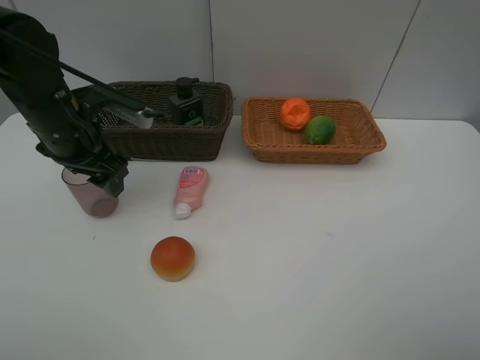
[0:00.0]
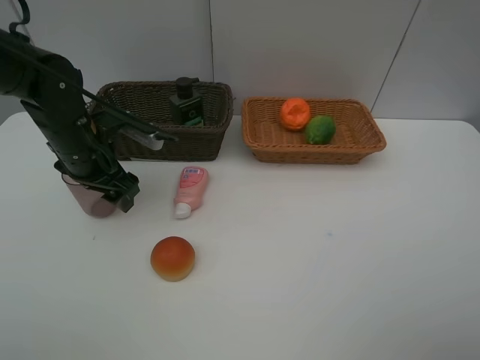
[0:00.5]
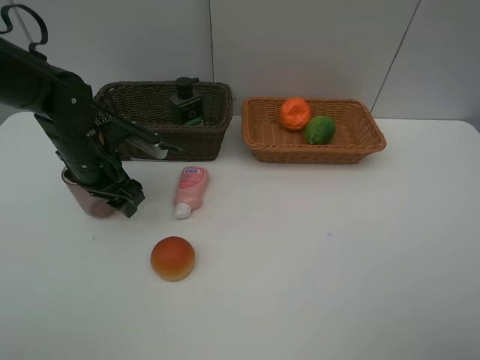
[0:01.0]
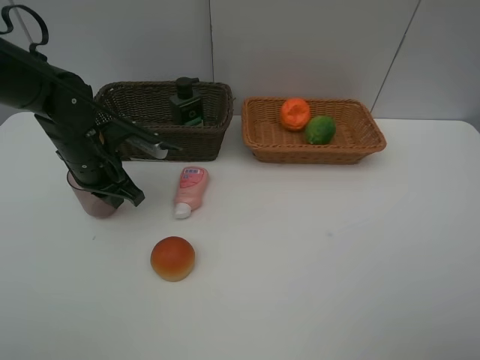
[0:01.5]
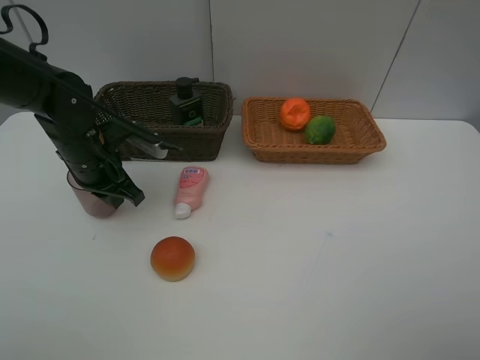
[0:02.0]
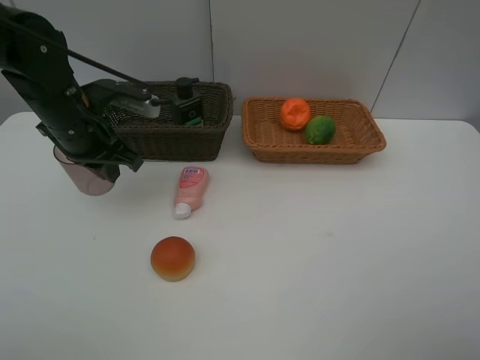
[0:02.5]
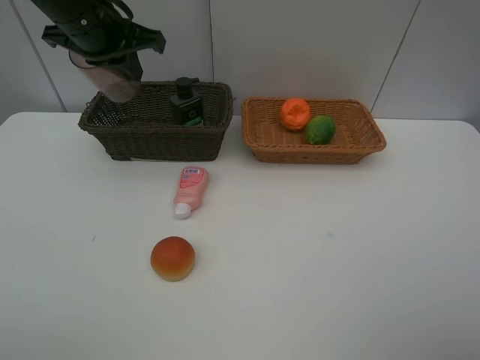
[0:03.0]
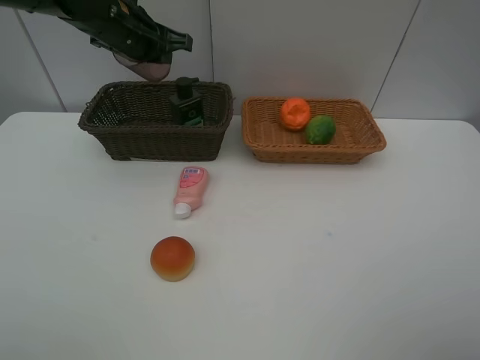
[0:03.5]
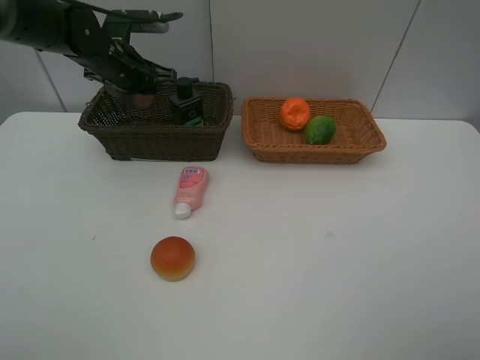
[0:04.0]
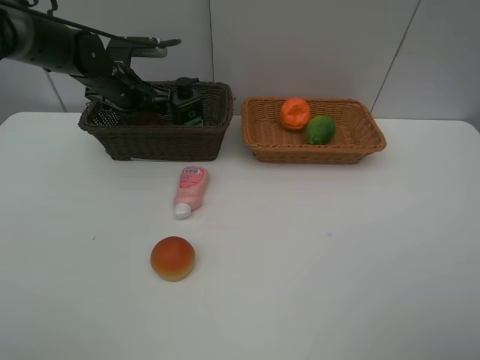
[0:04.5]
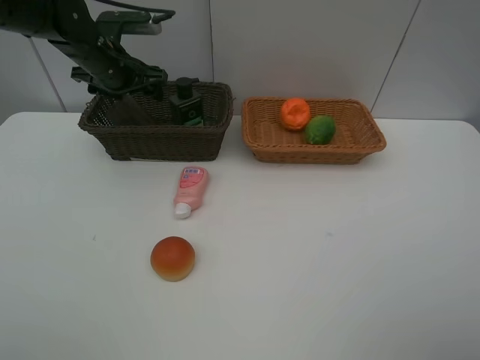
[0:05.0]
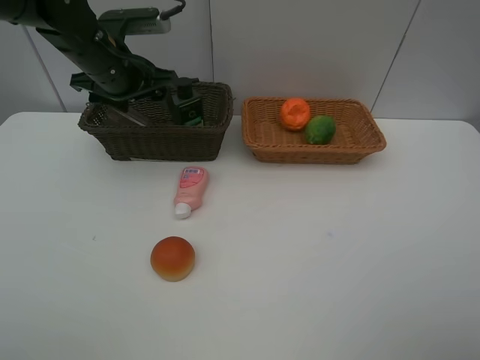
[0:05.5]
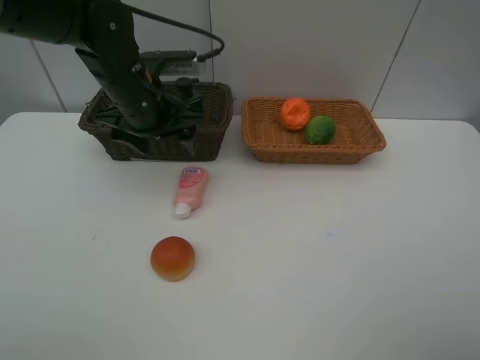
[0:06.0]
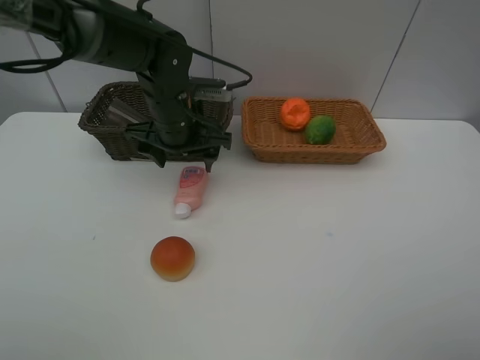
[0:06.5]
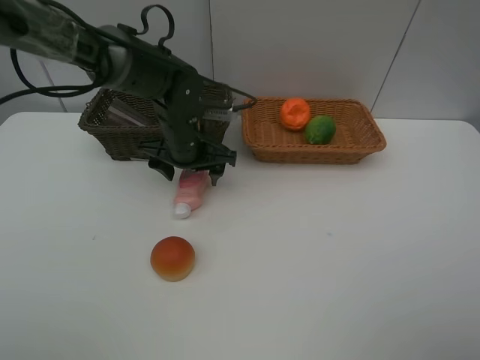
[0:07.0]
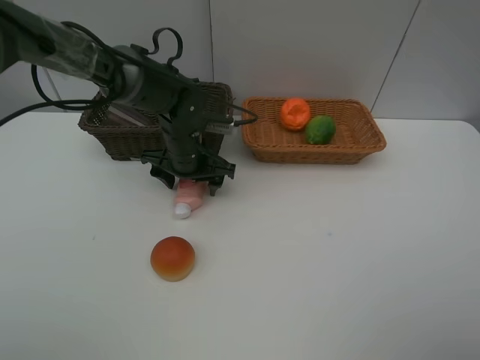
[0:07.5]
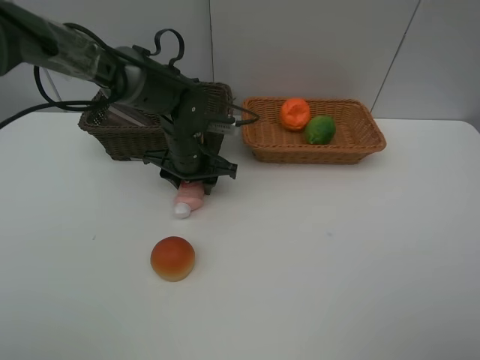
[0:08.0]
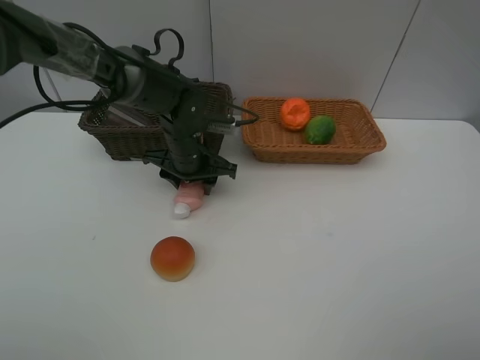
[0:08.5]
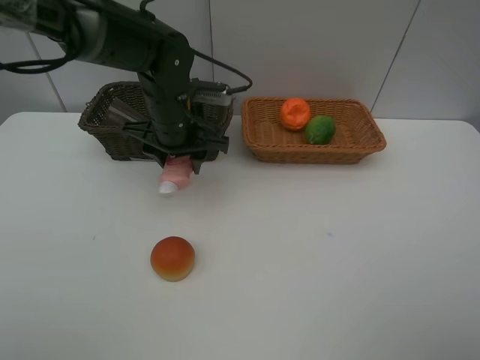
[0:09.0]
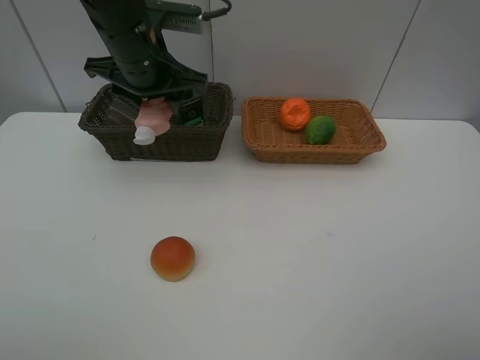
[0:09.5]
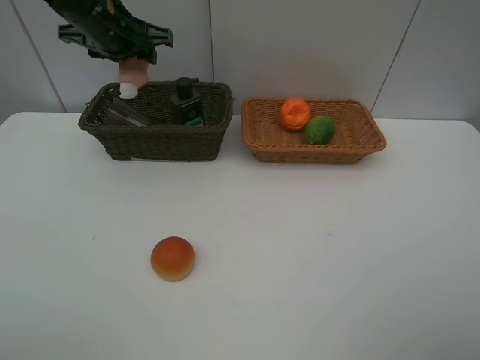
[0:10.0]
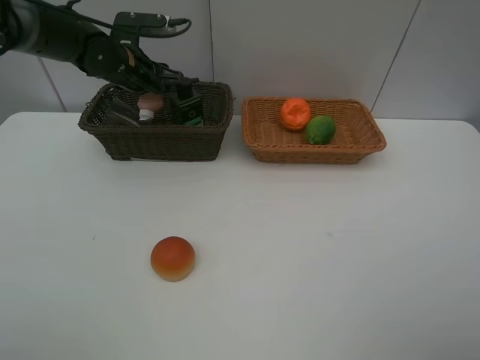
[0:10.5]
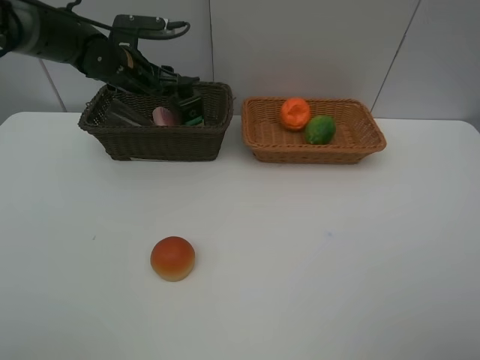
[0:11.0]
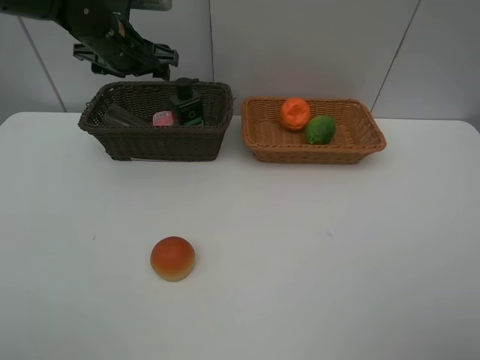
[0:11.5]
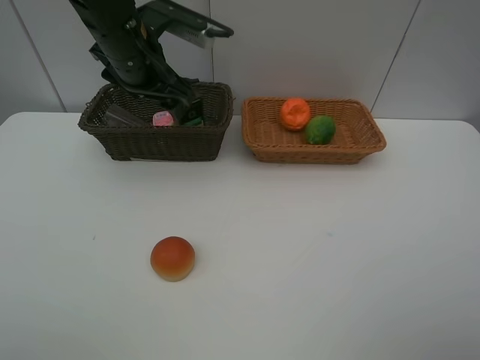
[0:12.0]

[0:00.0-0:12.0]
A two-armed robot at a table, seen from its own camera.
Task of the whole recording: place multiple objects separately in different baskets.
0:00.0 to 0:02.0: The left gripper travels downward by some 5 cm, and closes up.
0:02.0 to 0:04.0: The left gripper goes about 15 cm forward, and reaches roughly 15 cm upward, then returns.
0:04.0 to 0:06.0: The left gripper shifts about 15 cm backward and to the right, and opens up.
0:06.0 to 0:08.0: The left gripper shifts about 10 cm downward, and closes up.
0:08.0 to 0:10.0: The left gripper travels upward and to the left by approximately 20 cm.
0:10.0 to 0:12.0: The left gripper shifts roughly 10 cm backward and to the right, and opens up.

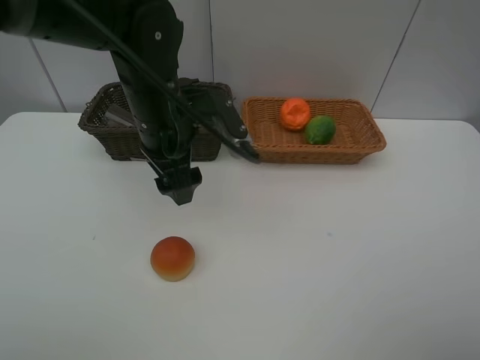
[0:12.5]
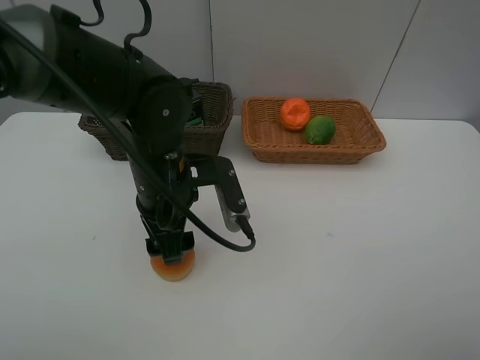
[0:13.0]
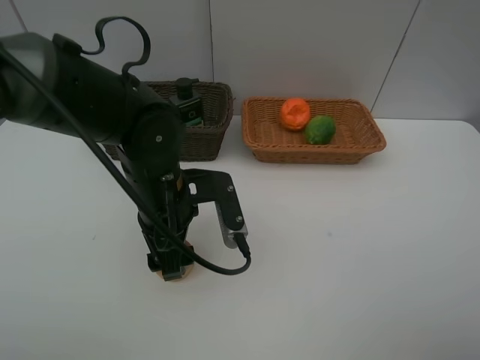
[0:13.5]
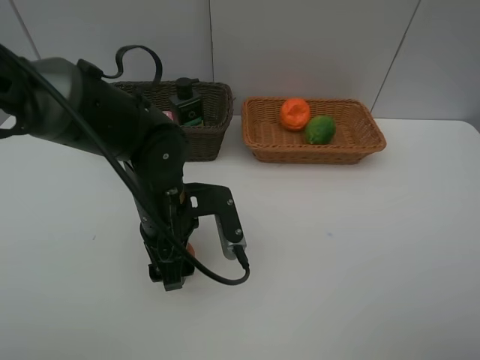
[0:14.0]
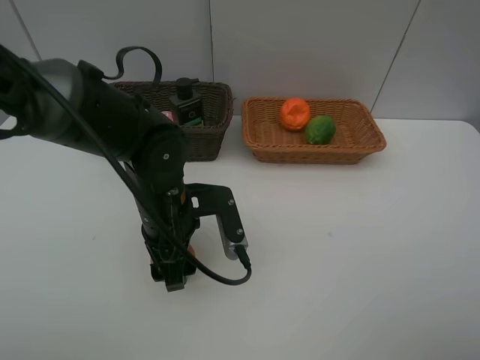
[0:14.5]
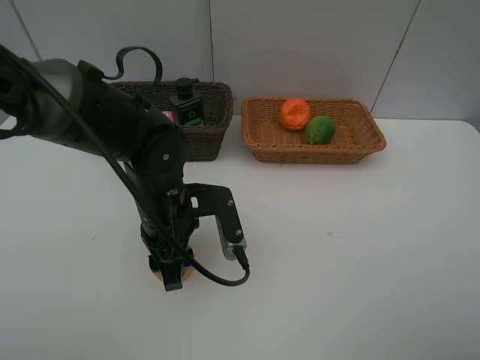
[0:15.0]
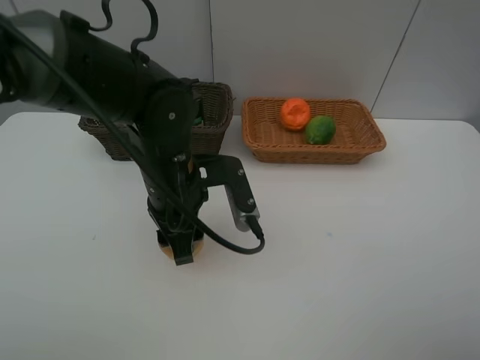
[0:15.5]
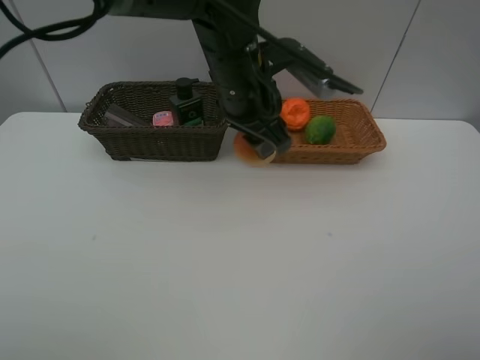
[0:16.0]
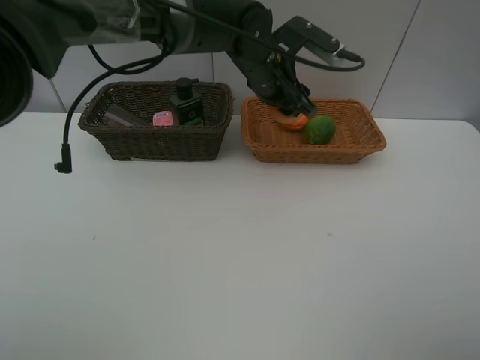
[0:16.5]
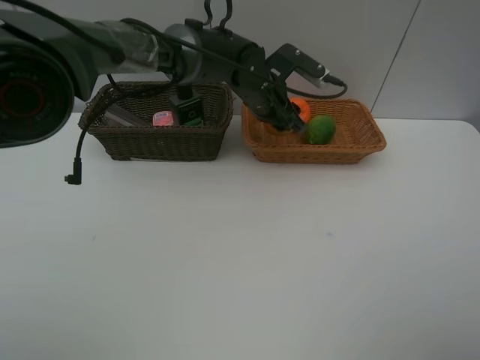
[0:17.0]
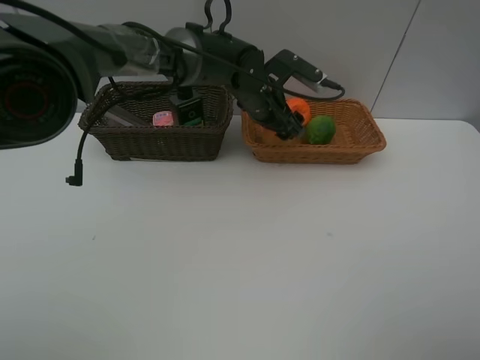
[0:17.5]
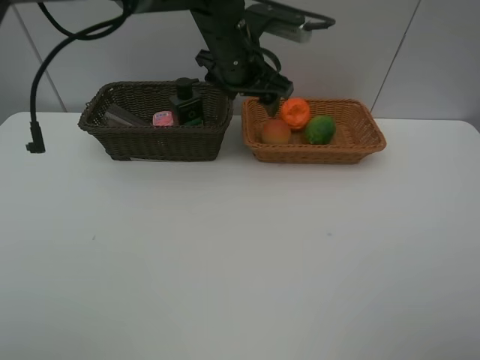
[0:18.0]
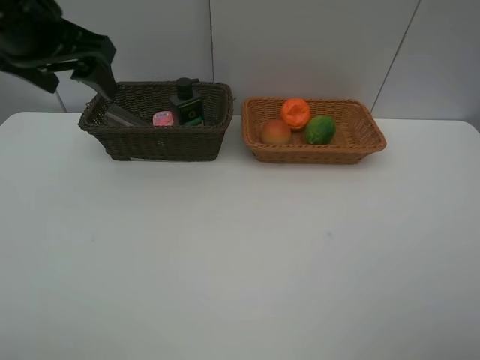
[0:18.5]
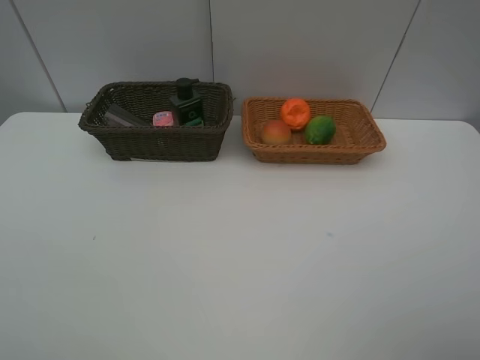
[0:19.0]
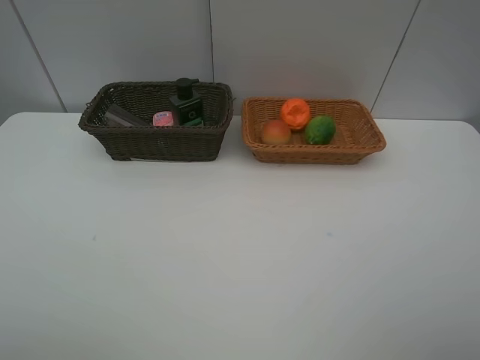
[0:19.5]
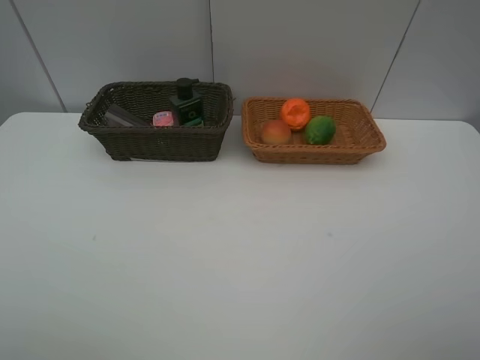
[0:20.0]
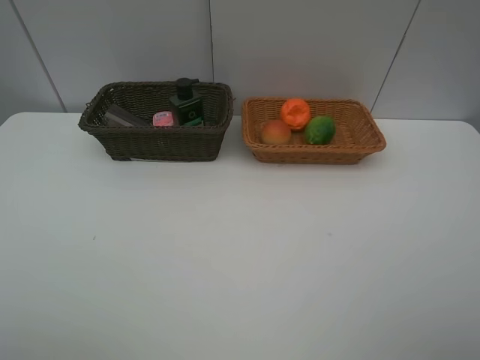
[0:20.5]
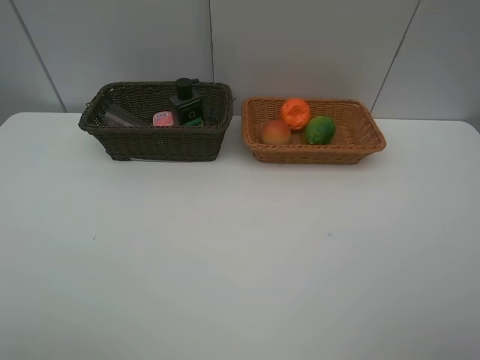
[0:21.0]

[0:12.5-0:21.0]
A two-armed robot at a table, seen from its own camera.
Task of the whole recording: place multiple objects separately in different baskets.
0:12.5 to 0:14.5: The left gripper goes approximately 10 cm downward and backward.
0:14.5 to 0:16.5: The left gripper heads forward, to the right and upward, covering roughly 25 cm.
0:16.5 to 0:19.0: The left gripper is displaced to the left, backward and upward by about 50 cm.
